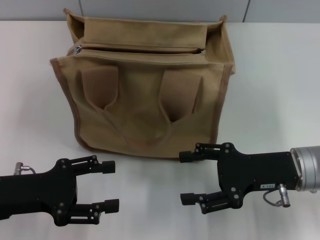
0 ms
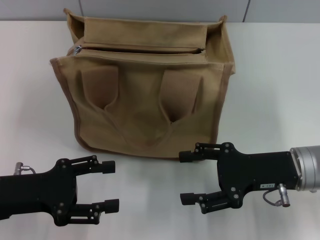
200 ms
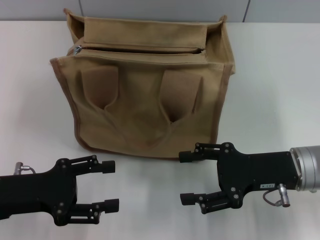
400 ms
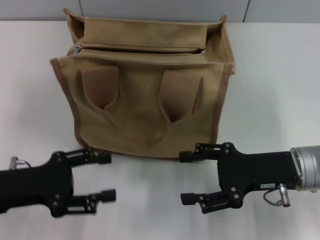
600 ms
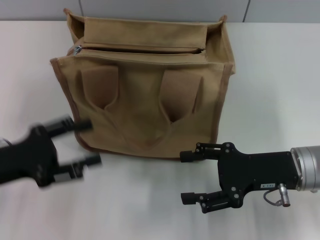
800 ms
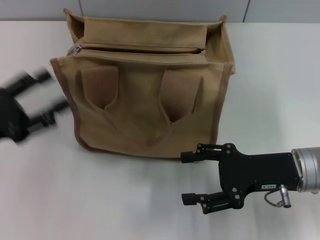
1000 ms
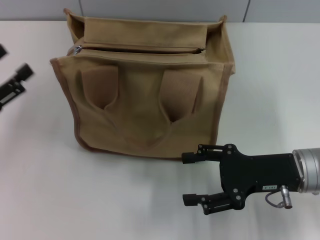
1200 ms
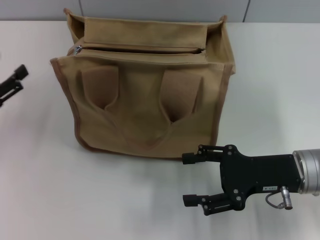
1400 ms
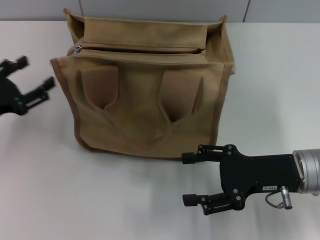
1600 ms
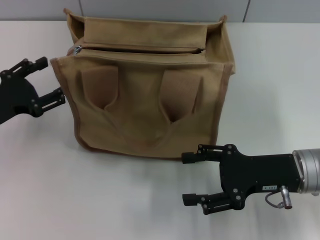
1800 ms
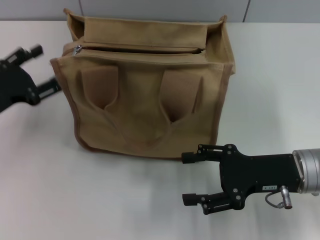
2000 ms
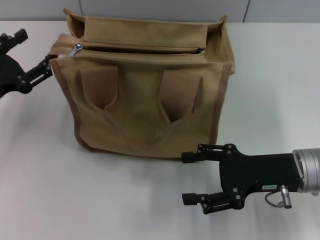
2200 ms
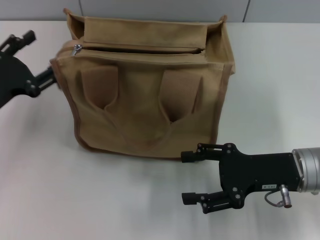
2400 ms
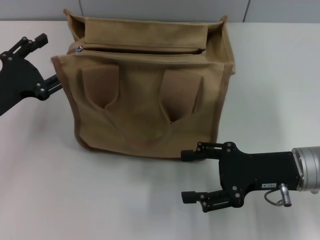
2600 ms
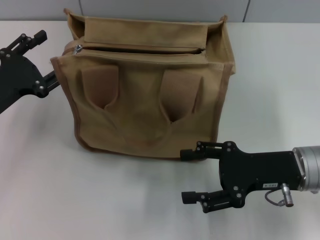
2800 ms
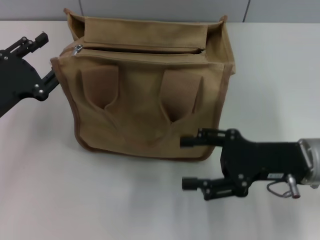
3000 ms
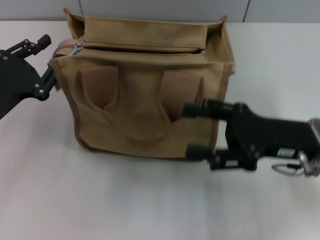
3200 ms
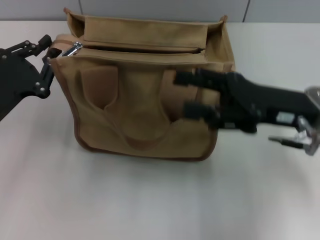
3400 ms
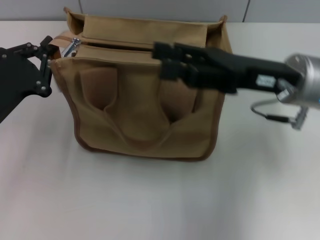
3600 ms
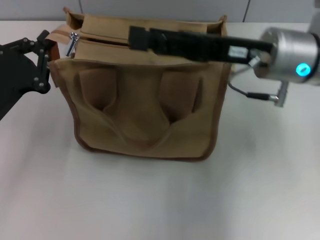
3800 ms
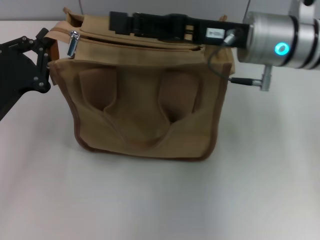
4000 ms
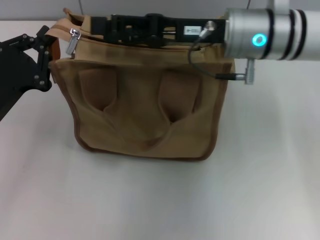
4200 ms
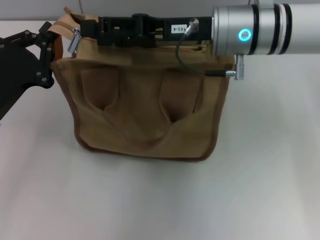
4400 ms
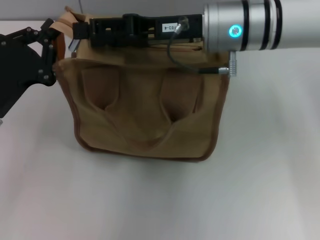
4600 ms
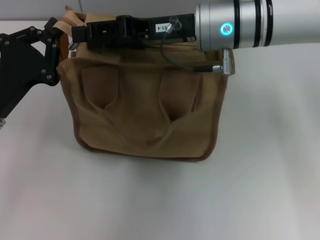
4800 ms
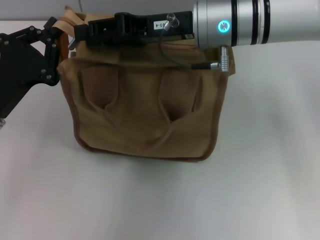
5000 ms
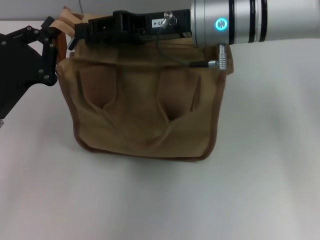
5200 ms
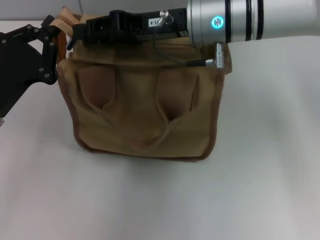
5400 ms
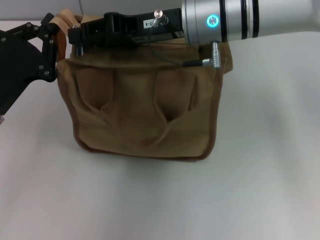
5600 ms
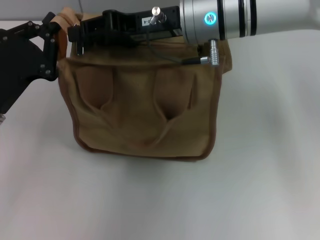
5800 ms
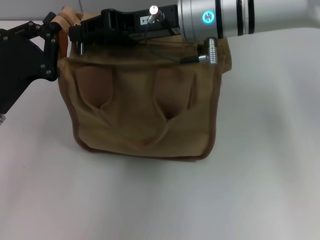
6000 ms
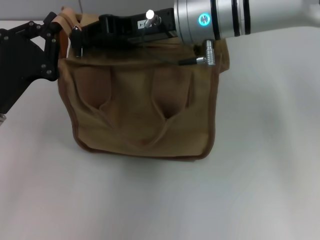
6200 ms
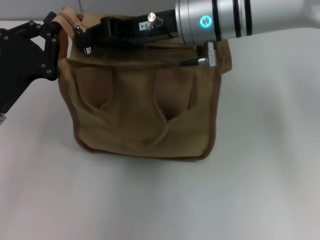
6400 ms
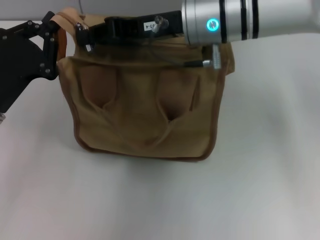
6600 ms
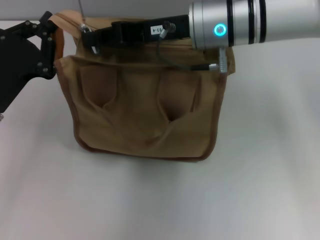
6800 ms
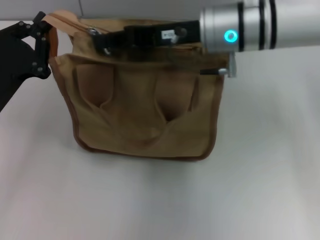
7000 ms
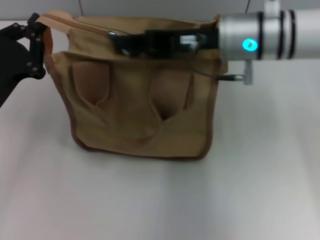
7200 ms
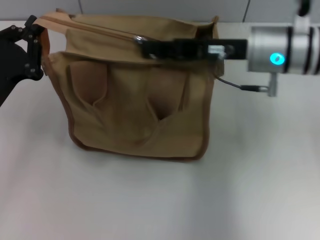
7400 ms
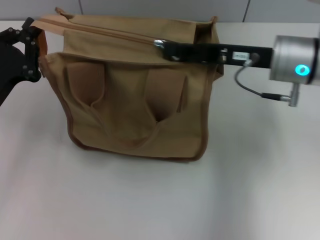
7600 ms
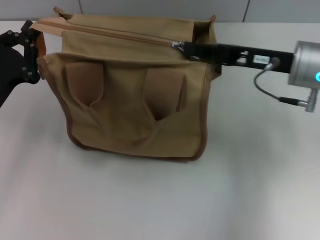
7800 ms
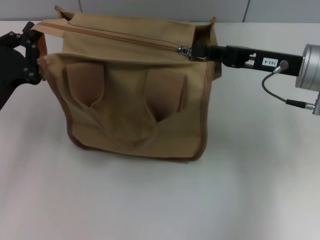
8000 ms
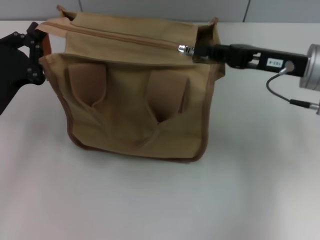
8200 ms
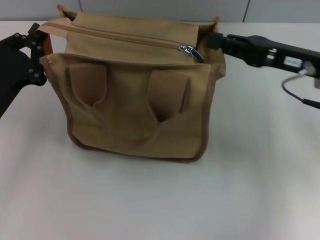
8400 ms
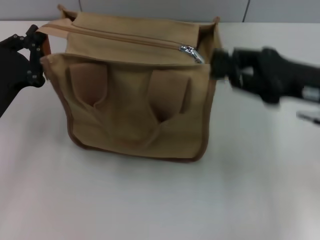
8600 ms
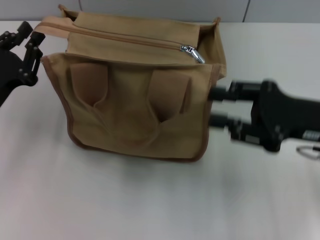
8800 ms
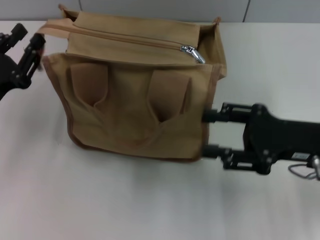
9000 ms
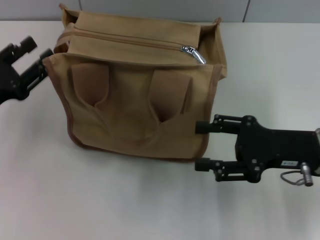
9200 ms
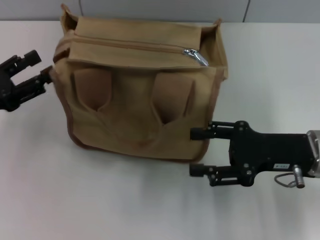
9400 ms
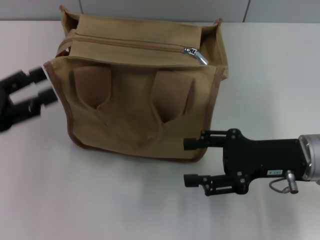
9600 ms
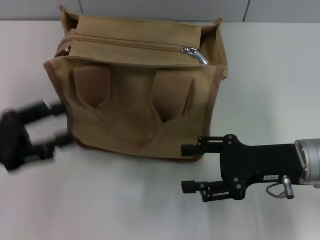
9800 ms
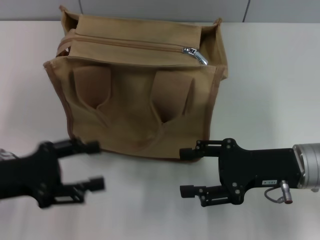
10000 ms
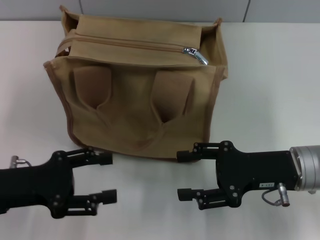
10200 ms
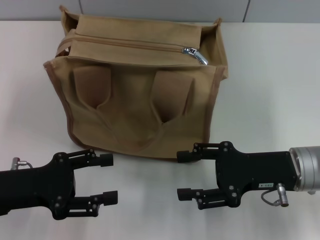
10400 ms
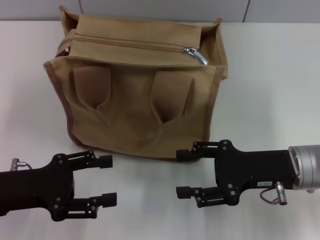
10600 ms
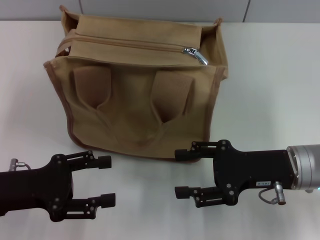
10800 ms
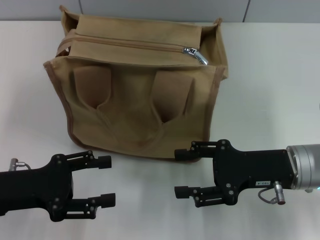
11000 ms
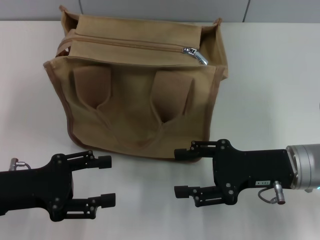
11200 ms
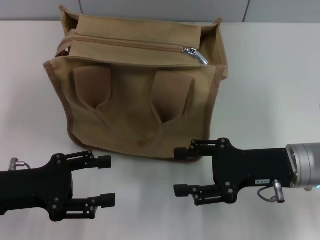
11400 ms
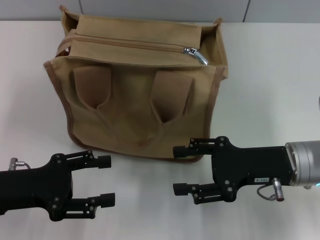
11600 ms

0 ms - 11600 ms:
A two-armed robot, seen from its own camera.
Step, 0 ms - 8200 ms: Pull up the zipper with your right hand.
Step, 8600 ms - 9000 ms: Grab the zipper with your left hand.
0 ms - 1400 ms: The left gripper moves to the left, some 10 cm.
1400 ms - 2800 ms: The left gripper travels to the right by some 5 cm.
2800 ms - 4400 ms: The right gripper goes about 20 cm forward, to the left and upward, while the left gripper closes.
4400 ms - 5800 ms: The right gripper closes its fingers.
5800 ms - 7200 ms: The right gripper travels to the right by about 5 cm, and closes.
7200 ms - 8800 ms: The right gripper goes approximately 15 cm to the right and backward.
8800 ms - 10200 ms: The right gripper travels downward by some 5 cm, and opens up. Meanwhile the left gripper opens.
10200 ms - 11600 ms: The two grippers keep their place.

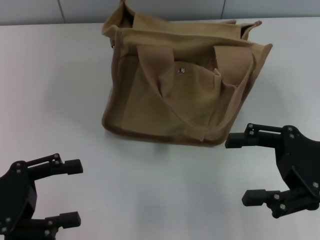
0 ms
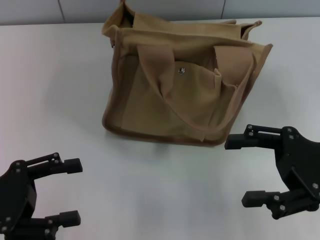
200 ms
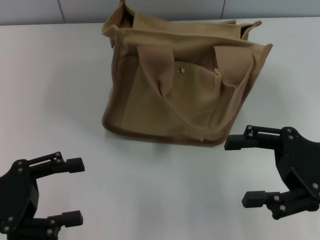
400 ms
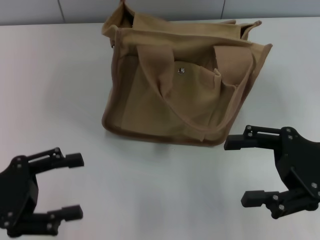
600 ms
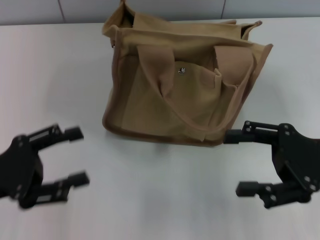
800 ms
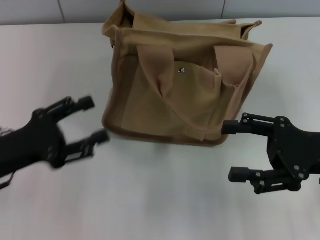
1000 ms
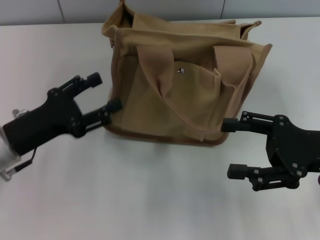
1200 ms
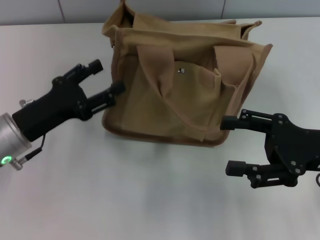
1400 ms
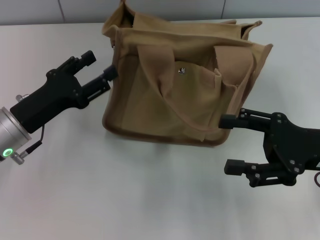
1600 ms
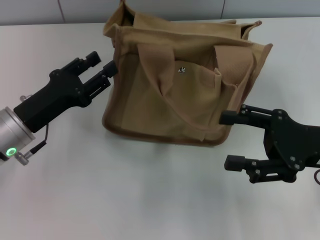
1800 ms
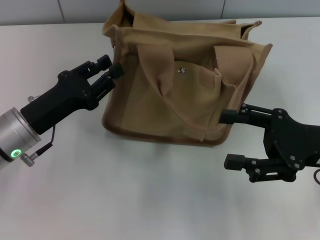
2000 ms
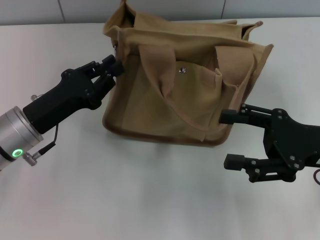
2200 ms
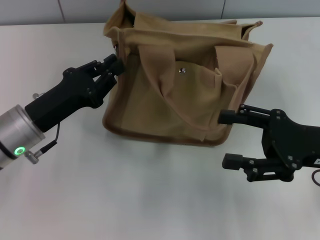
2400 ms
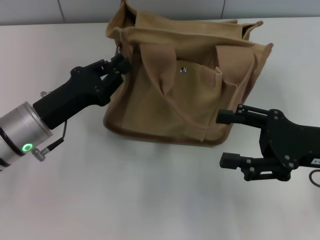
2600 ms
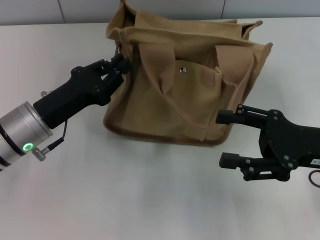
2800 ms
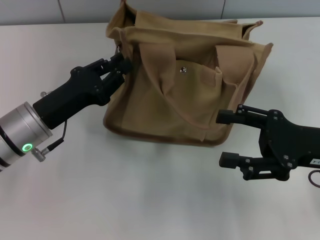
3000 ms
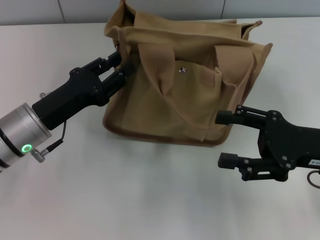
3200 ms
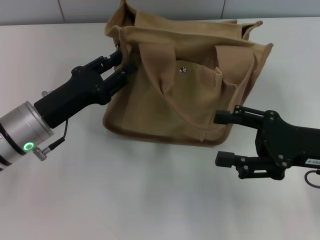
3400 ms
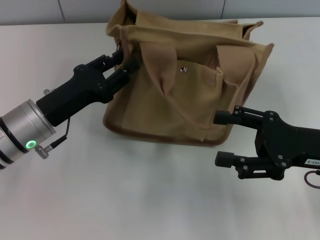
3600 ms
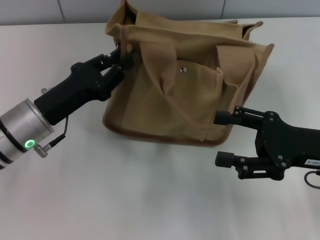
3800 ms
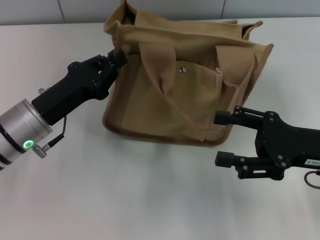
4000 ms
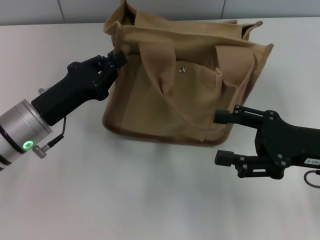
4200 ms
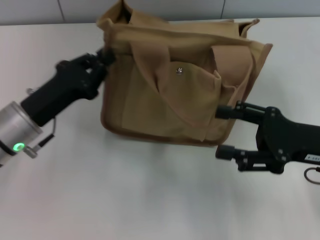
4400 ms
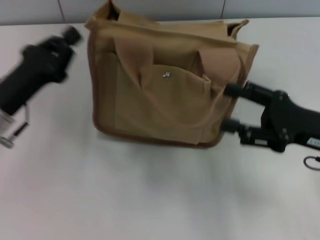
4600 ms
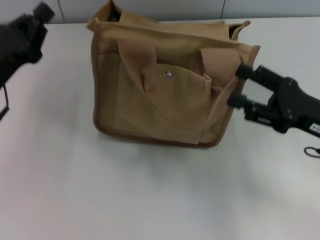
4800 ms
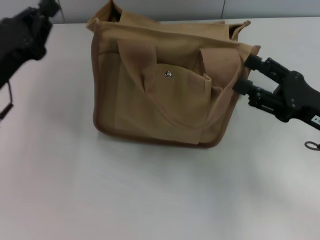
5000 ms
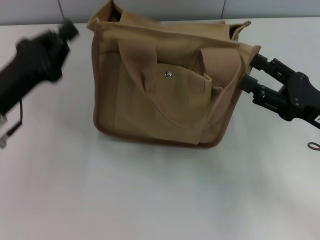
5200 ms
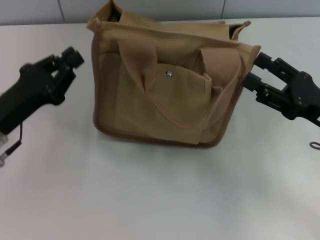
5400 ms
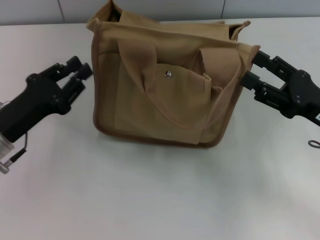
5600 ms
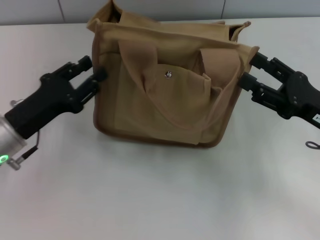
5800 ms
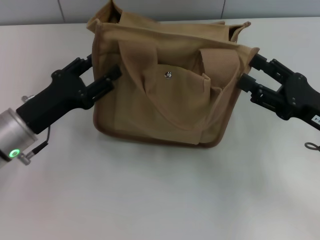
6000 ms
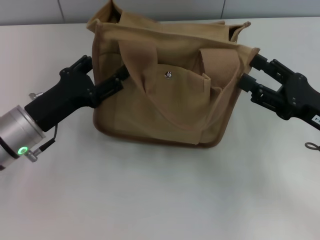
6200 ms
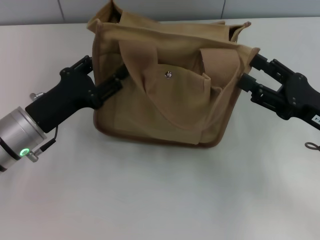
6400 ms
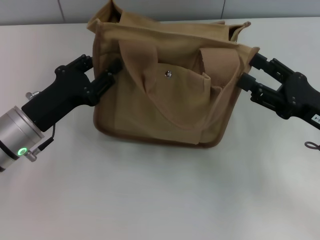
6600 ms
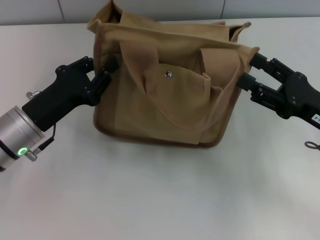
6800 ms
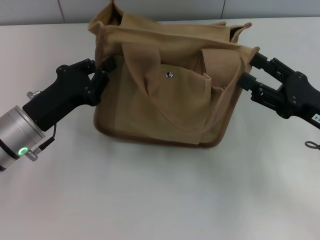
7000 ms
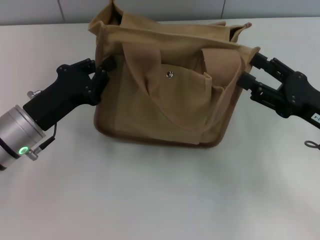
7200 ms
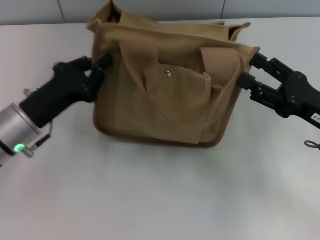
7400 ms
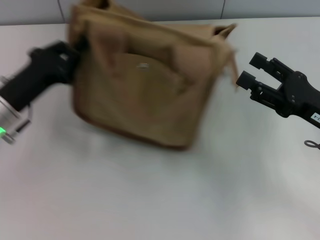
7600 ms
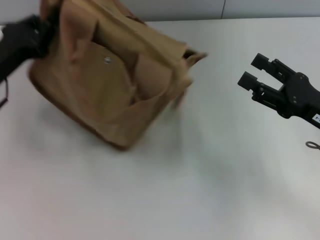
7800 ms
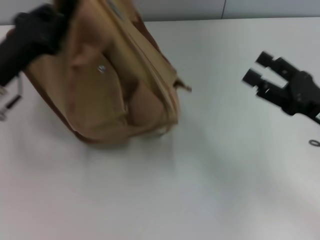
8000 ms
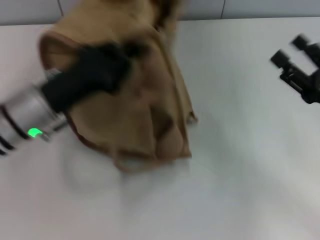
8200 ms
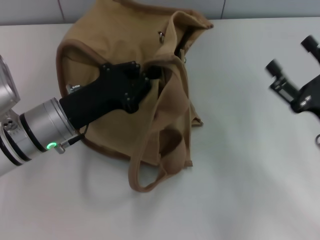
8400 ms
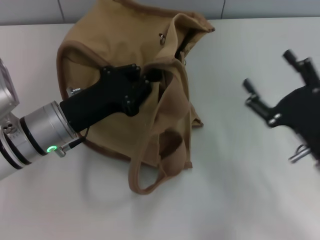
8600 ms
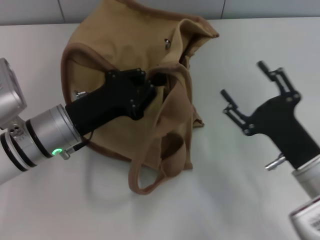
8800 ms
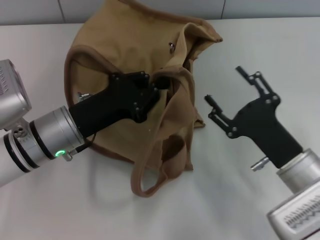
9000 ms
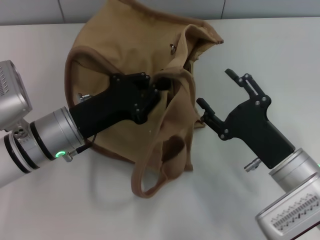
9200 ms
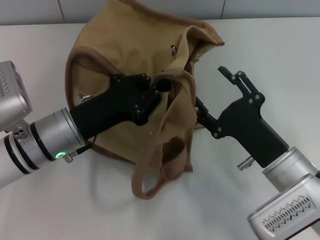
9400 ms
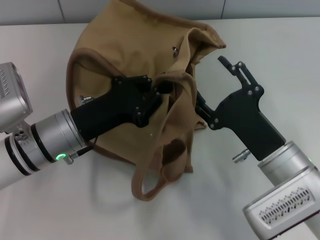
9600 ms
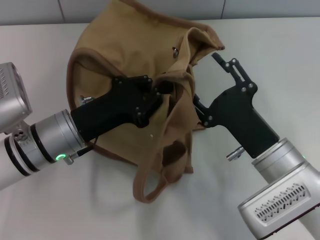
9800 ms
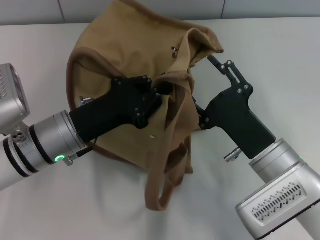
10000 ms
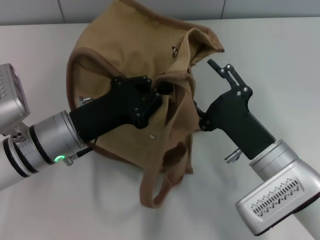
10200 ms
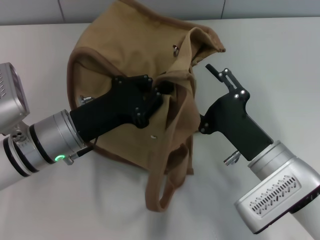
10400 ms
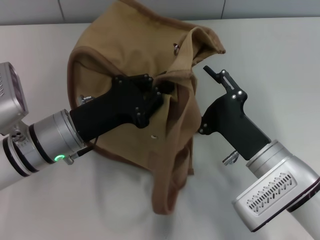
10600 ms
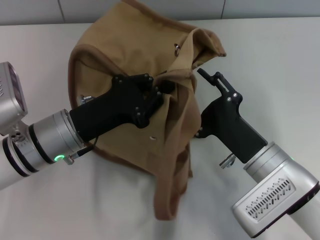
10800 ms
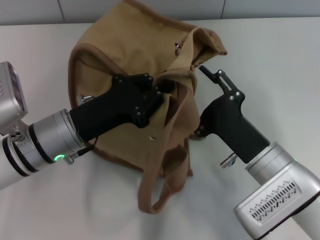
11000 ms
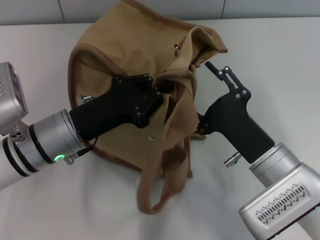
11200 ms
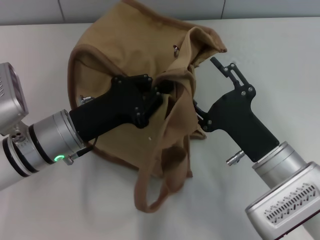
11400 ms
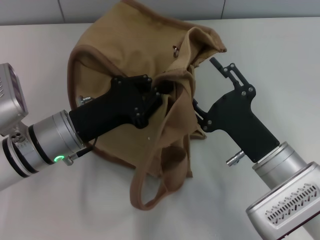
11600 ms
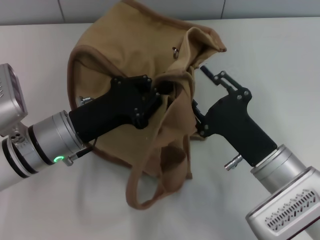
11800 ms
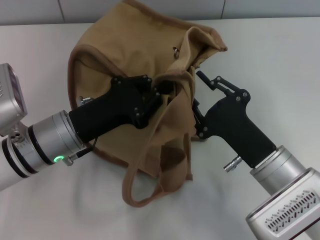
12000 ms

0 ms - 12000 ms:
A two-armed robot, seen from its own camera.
0 ms - 1600 ms: The left gripper moves forward and to the right, roughly 10 cm.
1600 ms - 3000 ms: The left gripper closes its fingers.
3000 ms - 4400 ms: The grippers make only small movements.
4400 ms - 6000 ms: The left gripper opens its fingers.
6000 ms - 7600 ms: The left gripper closes its fingers.
7600 ms - 9000 ms: The left gripper travels to the right by roughly 10 cm. Meanwhile the right gripper goes approximately 10 cm to the left.
10400 ms - 12000 ms: The grippers move only a little.
